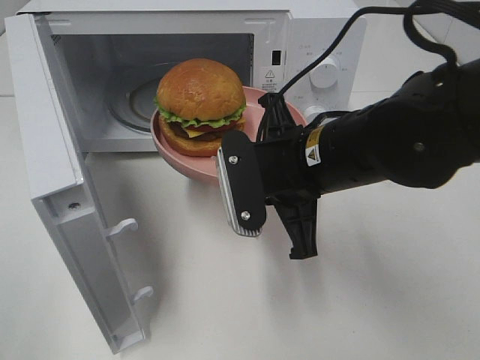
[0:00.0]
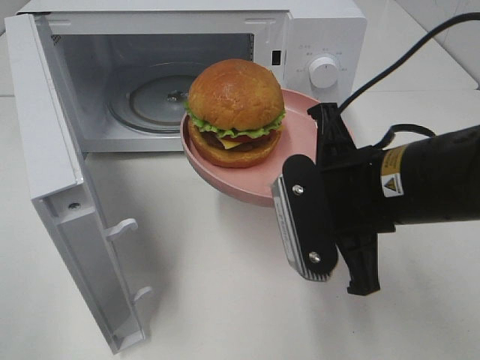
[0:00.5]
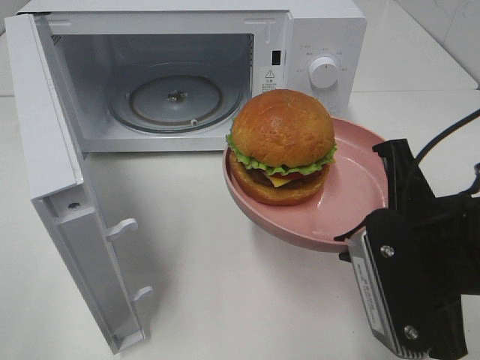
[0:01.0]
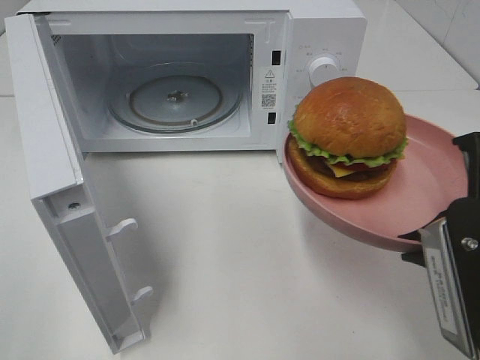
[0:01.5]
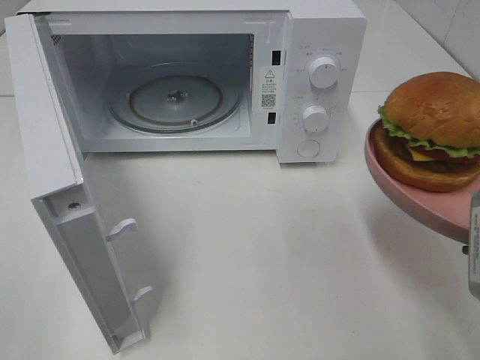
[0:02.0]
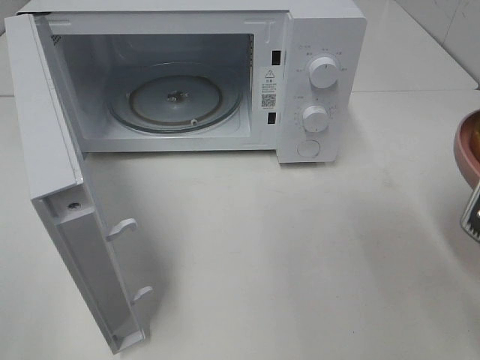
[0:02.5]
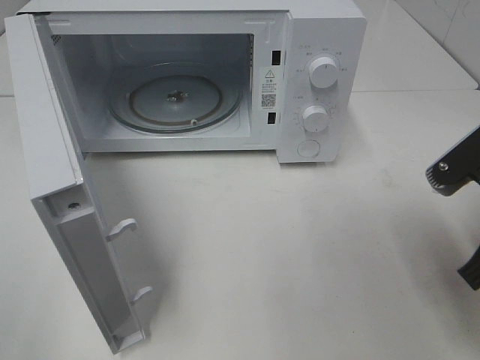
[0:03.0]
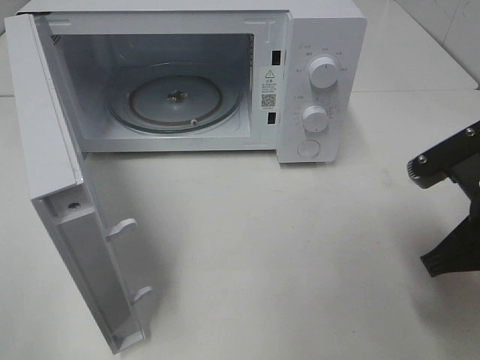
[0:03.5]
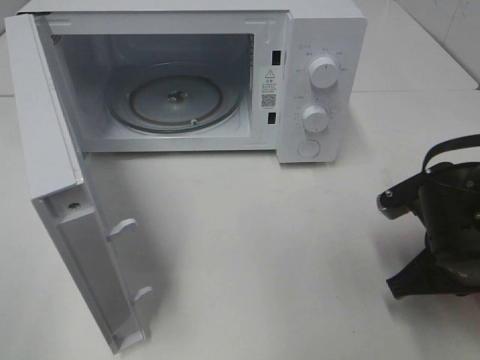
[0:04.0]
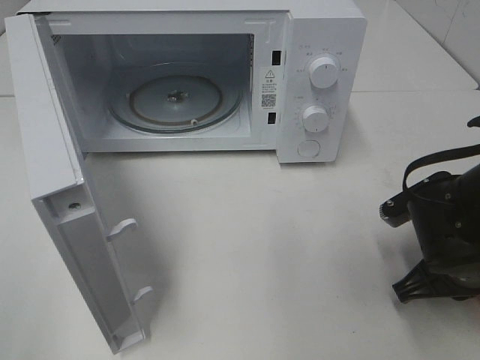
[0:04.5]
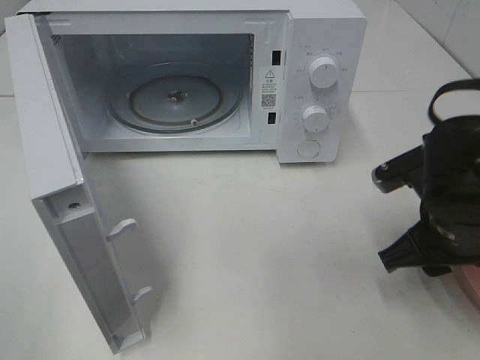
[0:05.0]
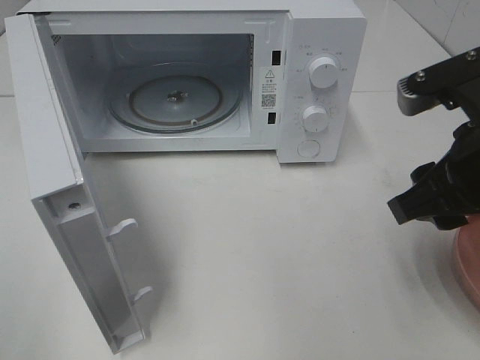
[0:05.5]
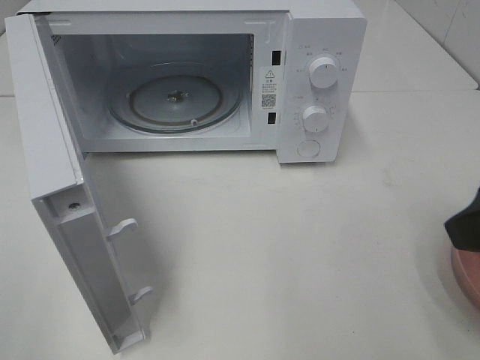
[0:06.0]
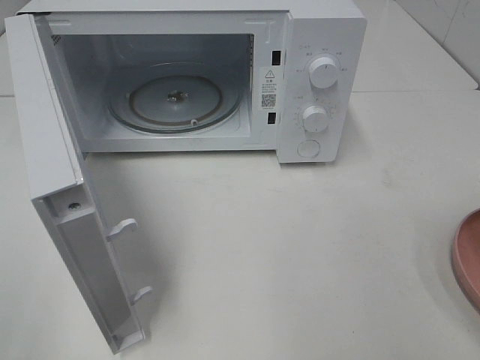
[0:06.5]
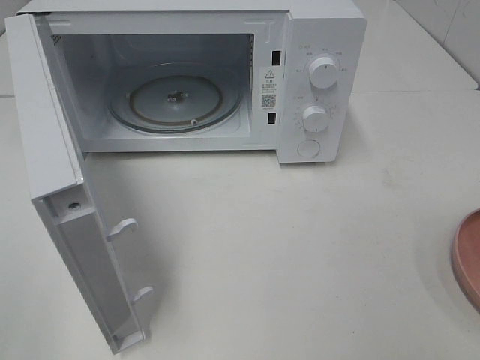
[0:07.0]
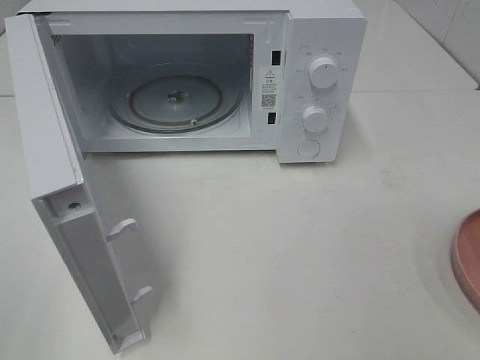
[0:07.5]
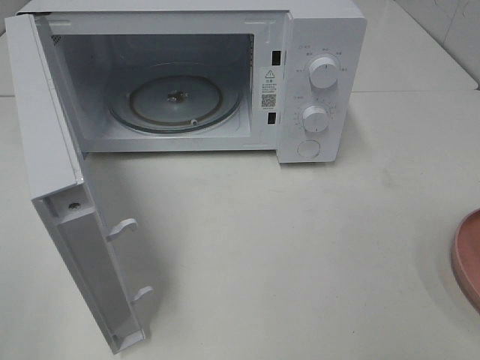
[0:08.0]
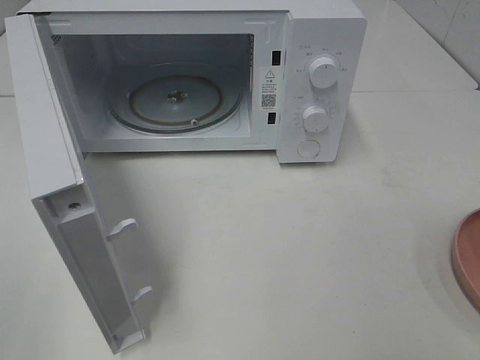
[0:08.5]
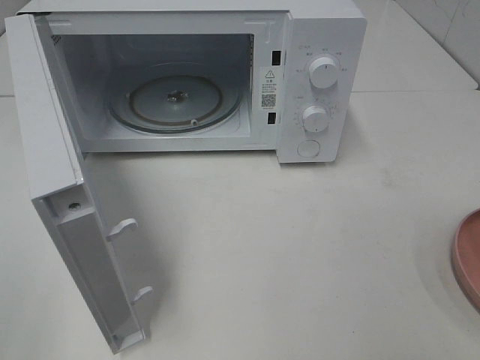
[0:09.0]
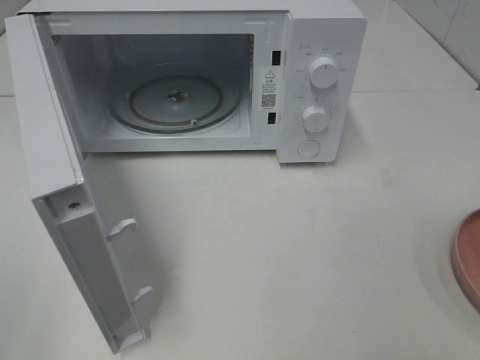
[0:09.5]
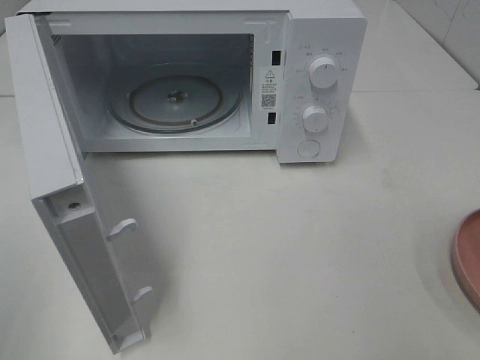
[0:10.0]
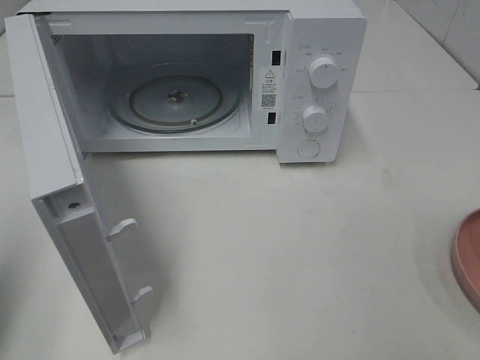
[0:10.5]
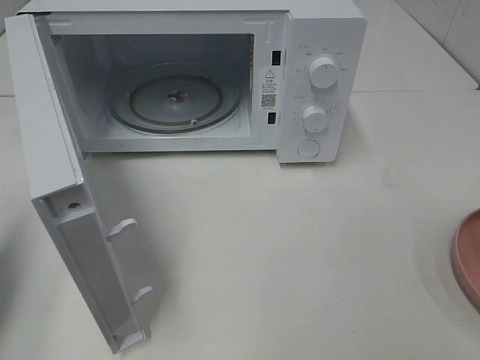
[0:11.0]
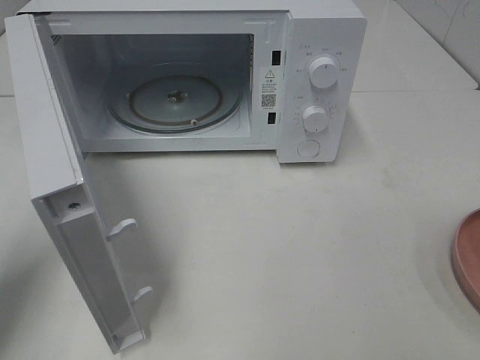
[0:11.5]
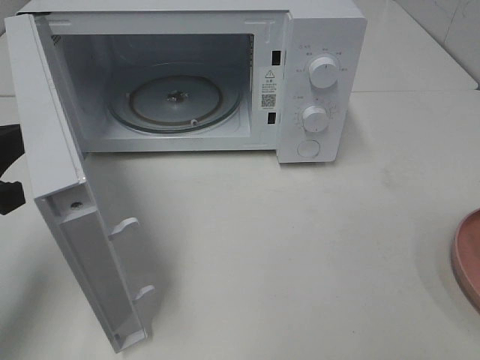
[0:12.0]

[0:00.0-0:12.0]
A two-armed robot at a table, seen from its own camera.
Task of the whole recording: Heat the burger.
Step, 0.0 to 4.5 s: Right hand: place the plate on the table.
0.0 to 2.0 s: The right gripper travels to the right and backward by about 20 cm.
2.0 to 4.0 s: The right gripper shifts some 15 cm downward and forward.
4.0 to 6.0 s: The right gripper is displaced upward by roughly 20 cm, and opens.
6.0 to 8.0 s: The right gripper shifts some 15 cm backward and to the right.
10.0 to 12.0 s: The left gripper moves forward and downward, about 20 cm, and closes its fingers.

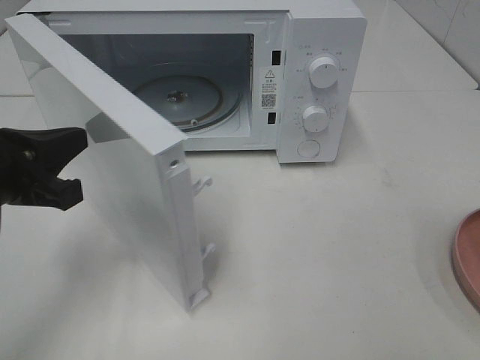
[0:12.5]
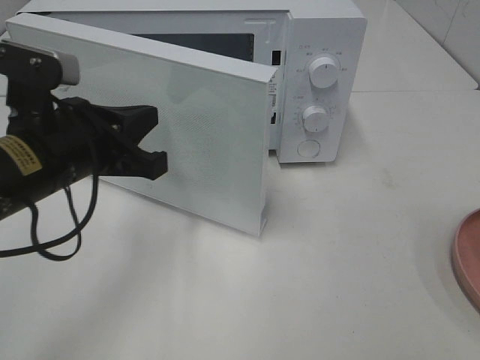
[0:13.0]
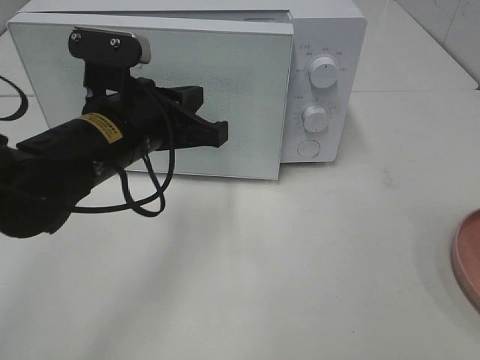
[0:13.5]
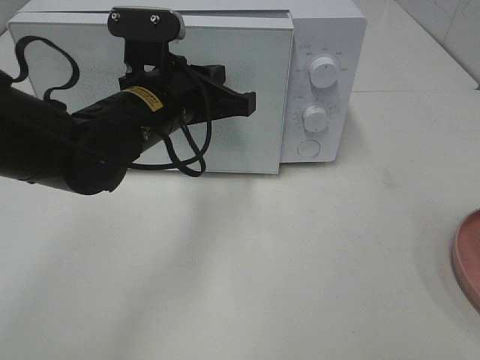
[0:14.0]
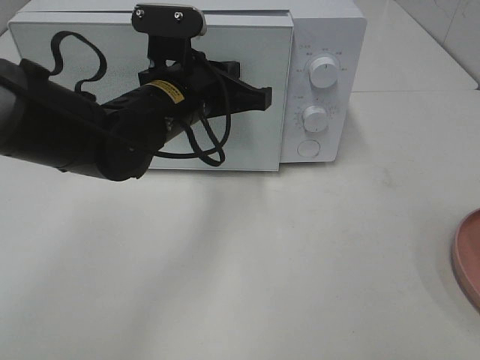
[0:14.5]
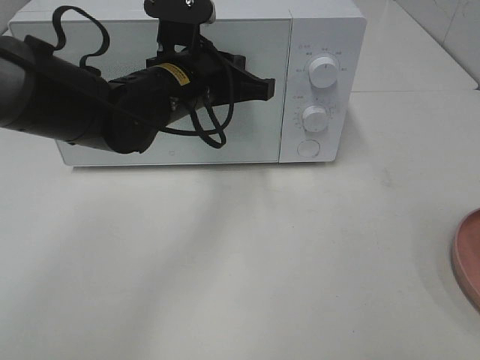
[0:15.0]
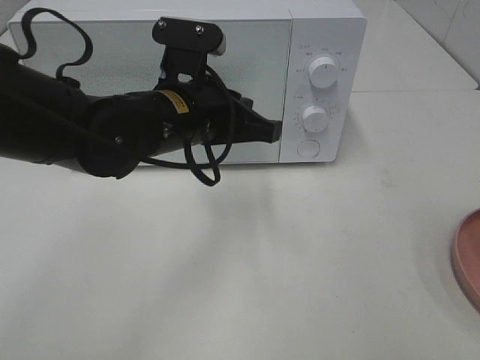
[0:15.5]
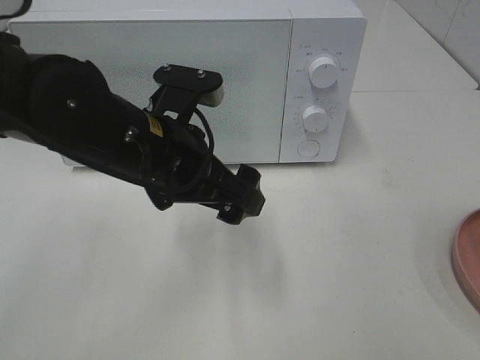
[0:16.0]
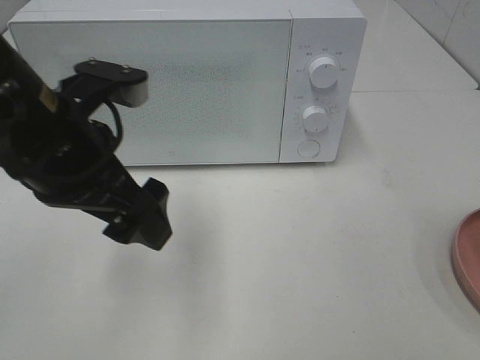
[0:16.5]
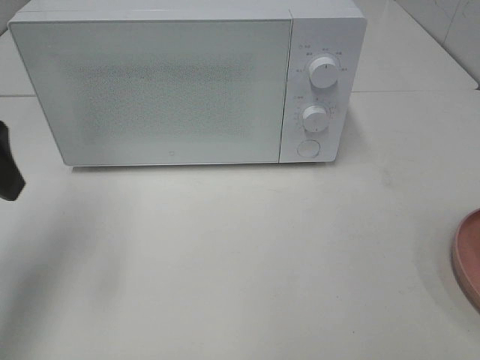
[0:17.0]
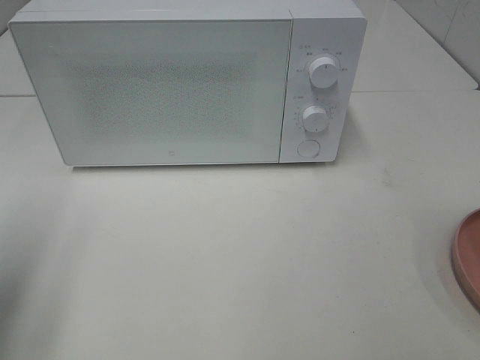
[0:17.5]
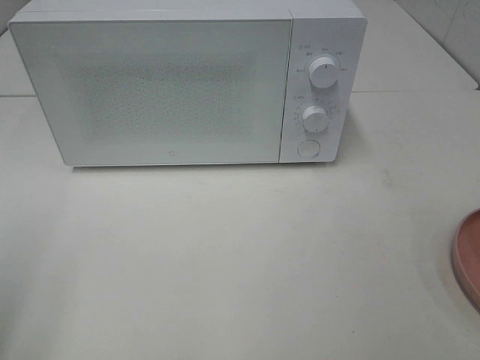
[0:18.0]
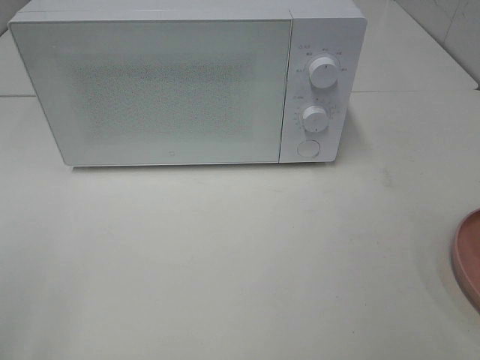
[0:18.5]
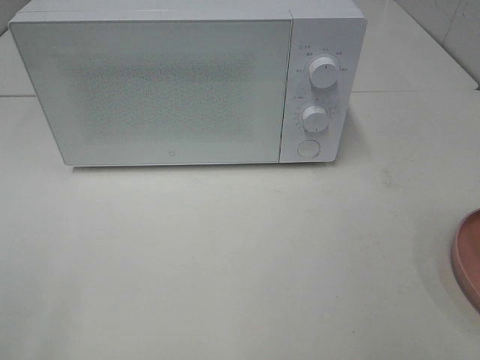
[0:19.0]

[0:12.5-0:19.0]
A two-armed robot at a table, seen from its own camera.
Task of the whole recording: Heat the burger.
Step, 12.5 to 15.0 s: Left hand: close the microwave door.
12.5 to 14.5 s: The left gripper goes roughly 20 cm to the right and forward.
14.5 to 17.0 s: The left gripper heads to the left, upward and backward, covering some 25 cm, and opens up.
17.0 to 19.0 s: The left gripper shifts roughly 25 cm backward.

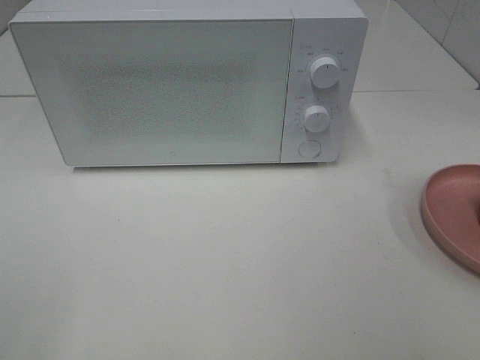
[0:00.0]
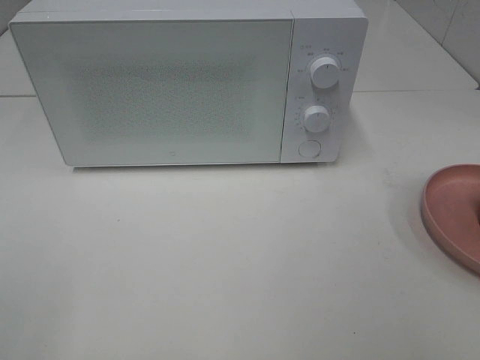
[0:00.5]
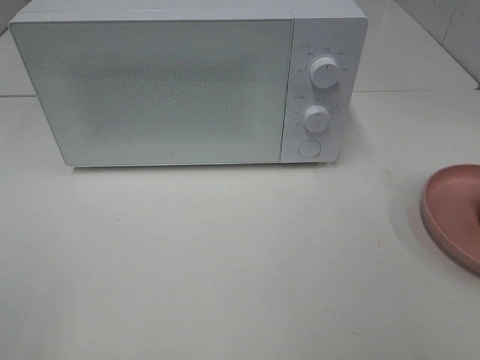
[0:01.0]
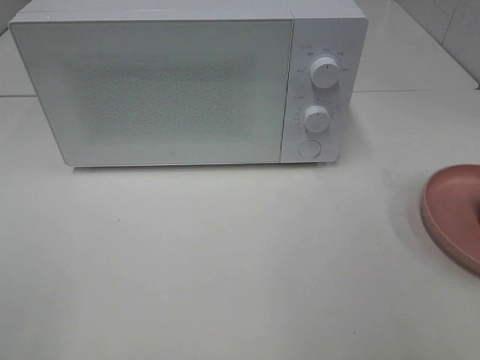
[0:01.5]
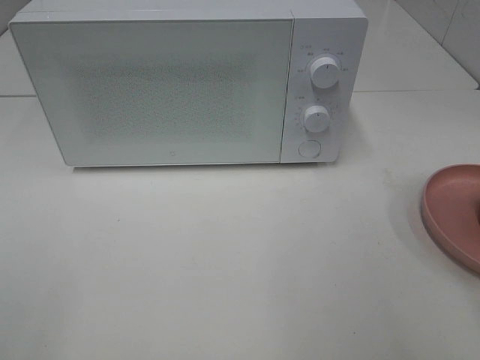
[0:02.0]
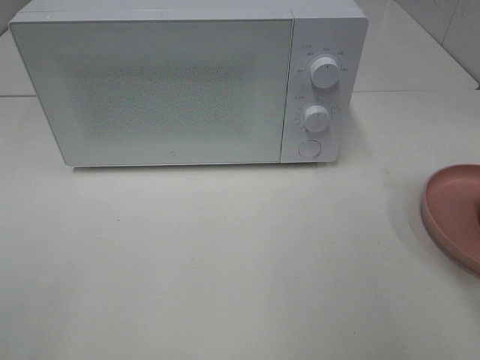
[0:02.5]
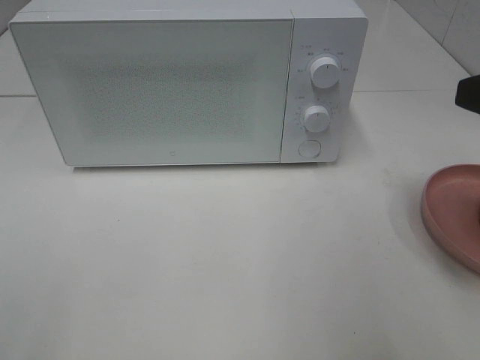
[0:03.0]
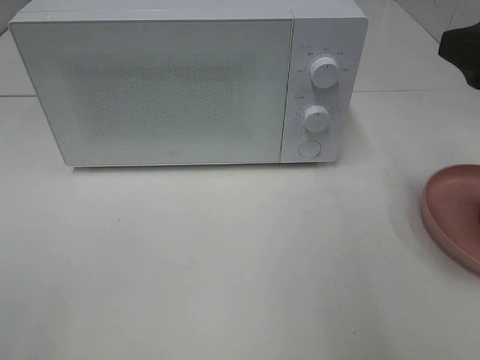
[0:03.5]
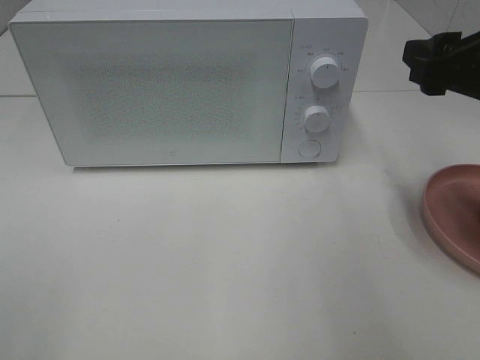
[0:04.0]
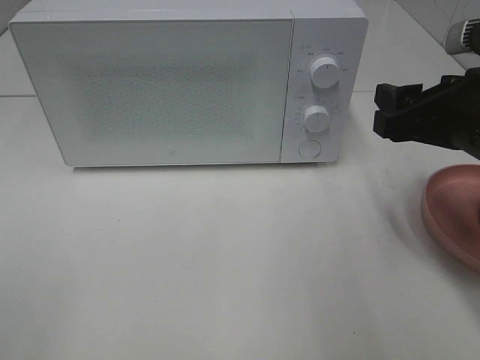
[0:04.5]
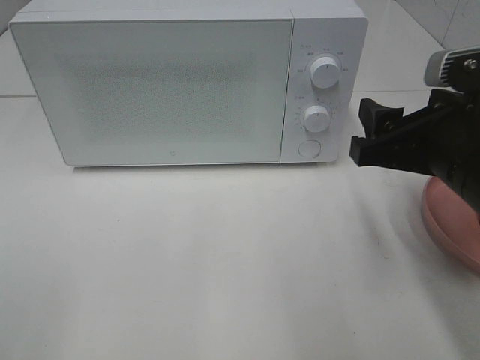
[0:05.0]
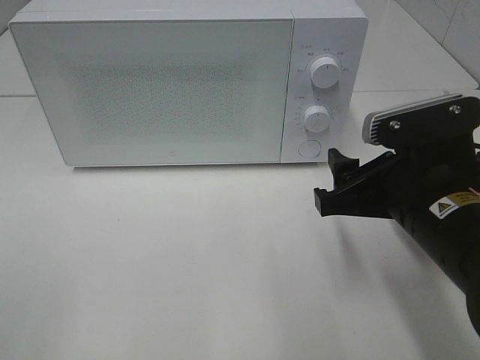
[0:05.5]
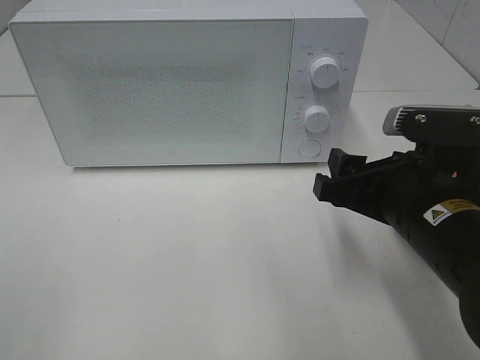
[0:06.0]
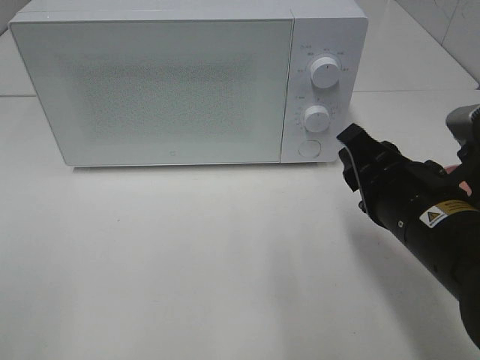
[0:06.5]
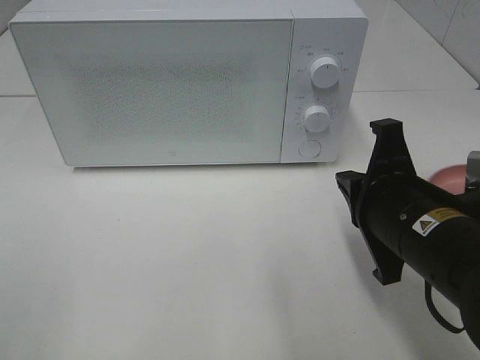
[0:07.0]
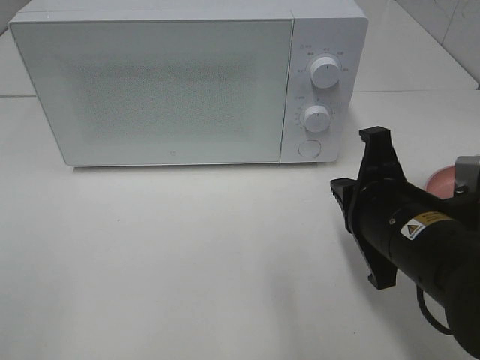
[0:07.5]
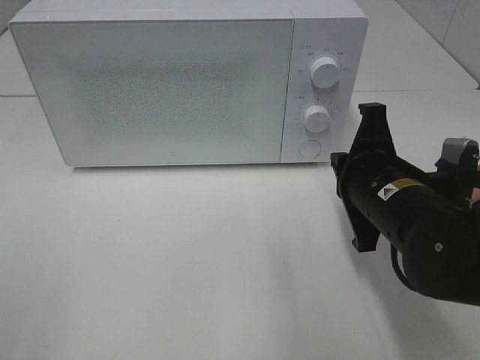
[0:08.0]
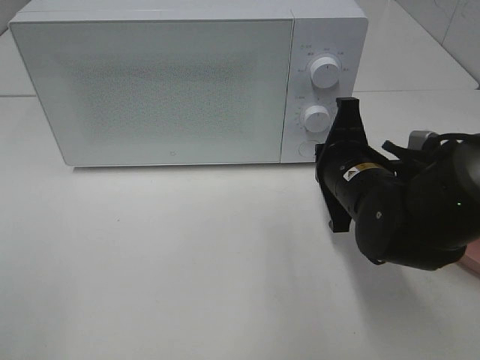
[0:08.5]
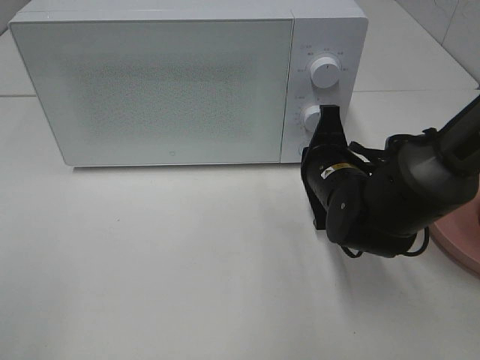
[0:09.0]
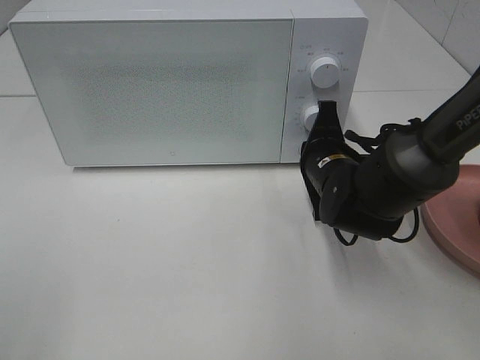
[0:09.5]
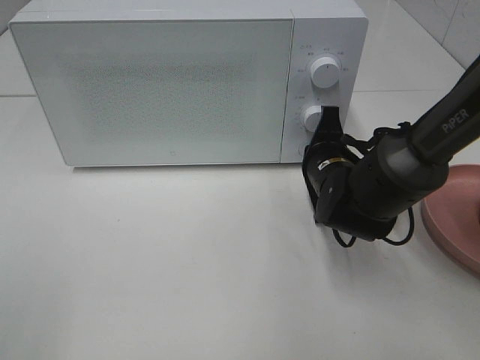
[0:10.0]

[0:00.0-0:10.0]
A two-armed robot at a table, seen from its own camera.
Task of the whole recording: Heat the burger.
2.0 to 4.0 s: The right gripper travels forward by approximately 20 cm.
4.0 to 6.0 s: The right gripper is displaced downward, to the left and backward by roughly 15 cm.
6.0 to 8.0 s: The right gripper shifts by some 5 cm, and closes up.
8.0 to 10.0 s: The right gripper goes roughly 10 cm forward and downward.
